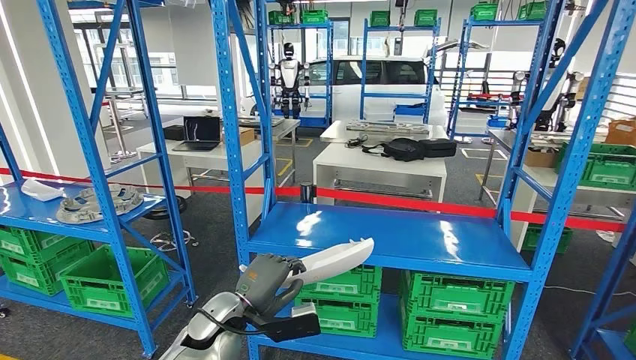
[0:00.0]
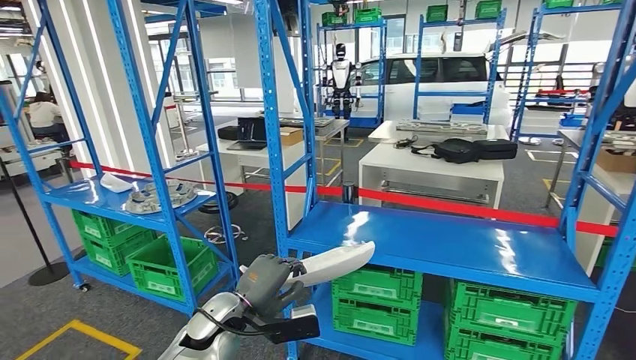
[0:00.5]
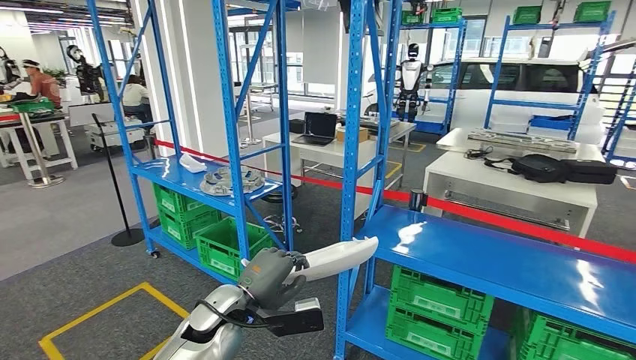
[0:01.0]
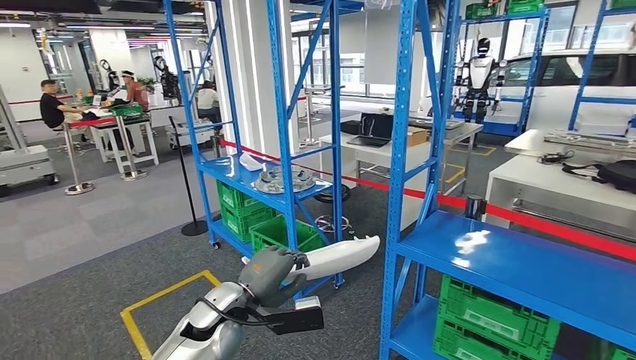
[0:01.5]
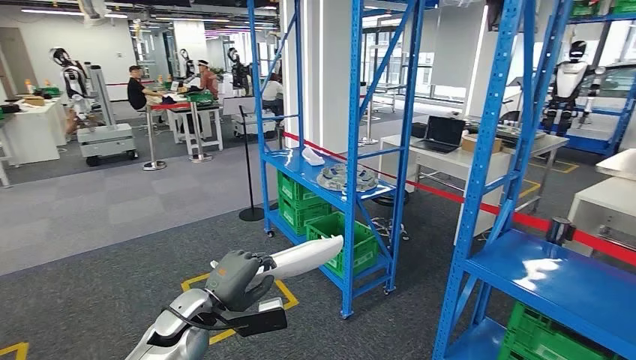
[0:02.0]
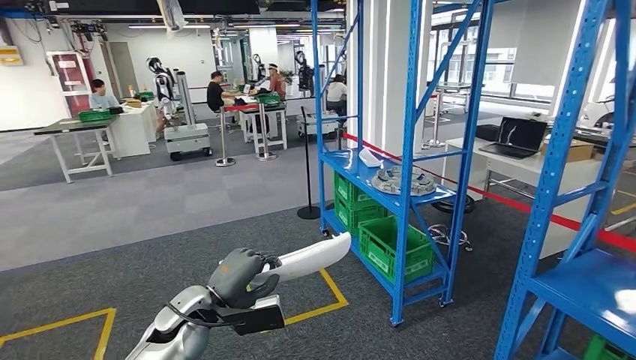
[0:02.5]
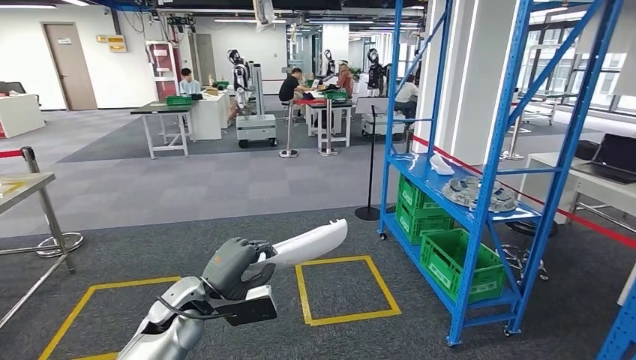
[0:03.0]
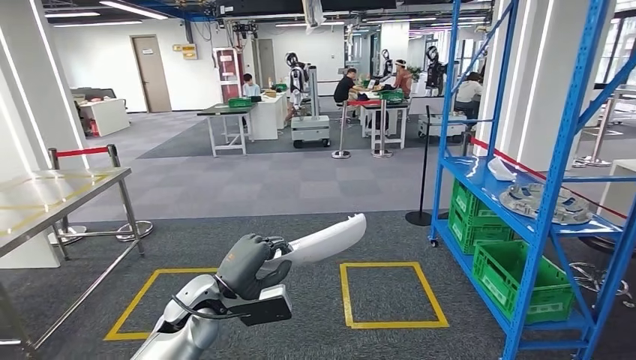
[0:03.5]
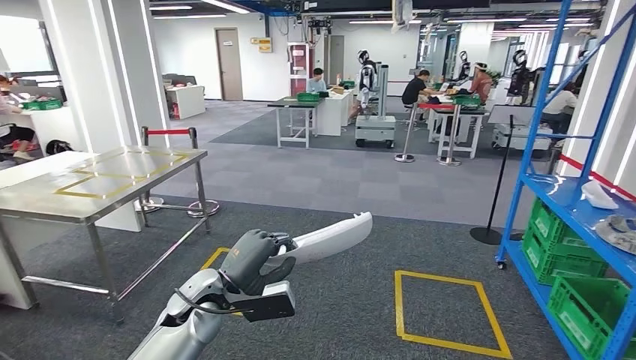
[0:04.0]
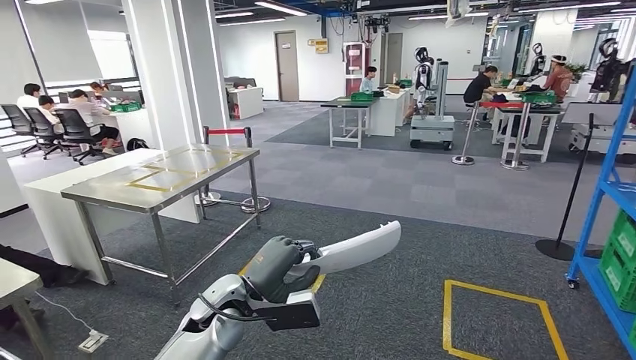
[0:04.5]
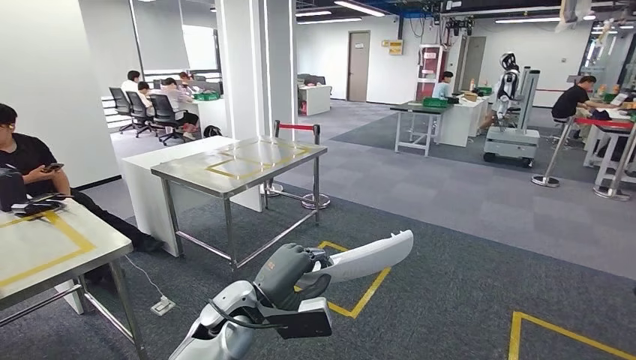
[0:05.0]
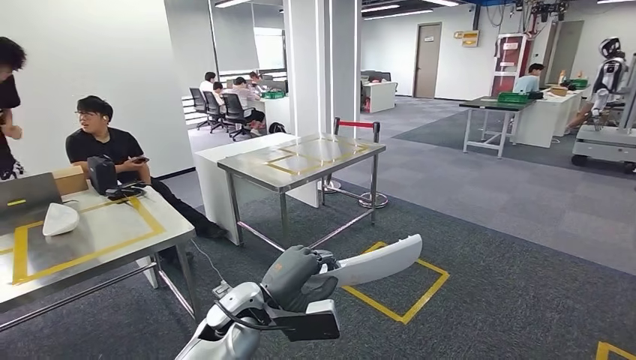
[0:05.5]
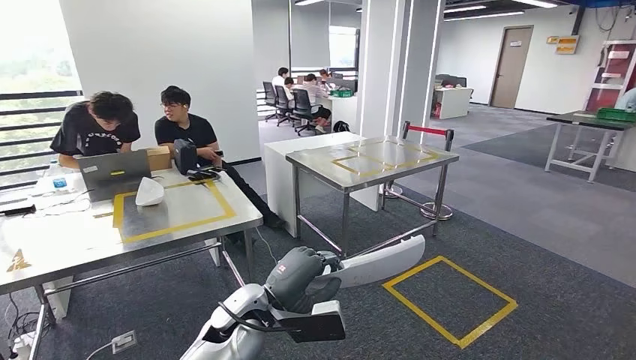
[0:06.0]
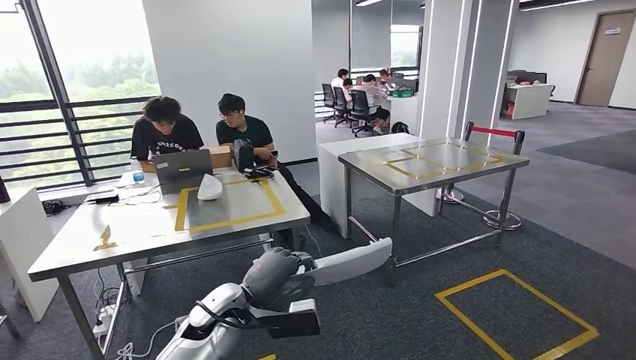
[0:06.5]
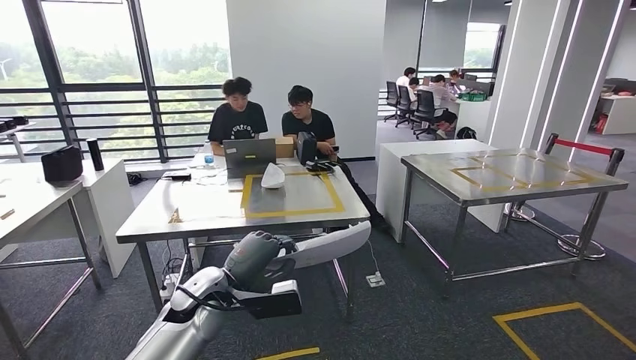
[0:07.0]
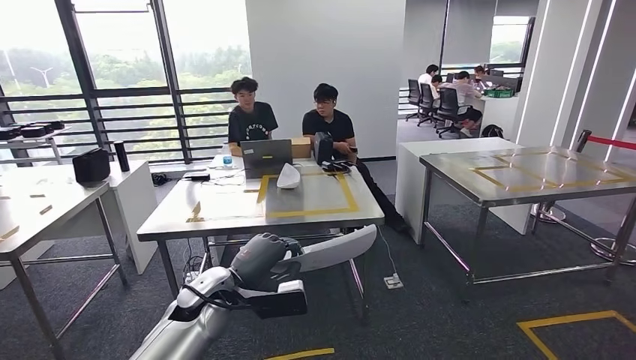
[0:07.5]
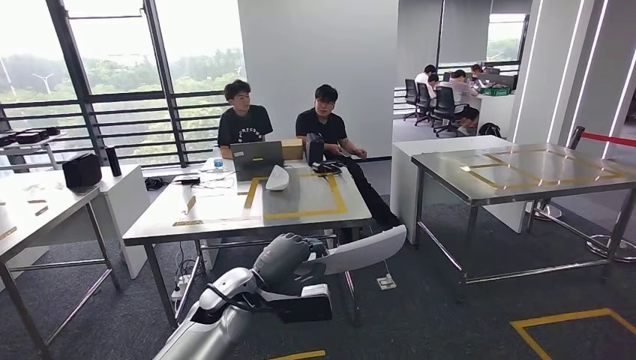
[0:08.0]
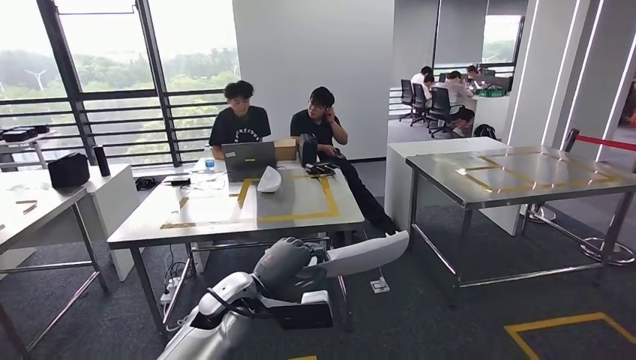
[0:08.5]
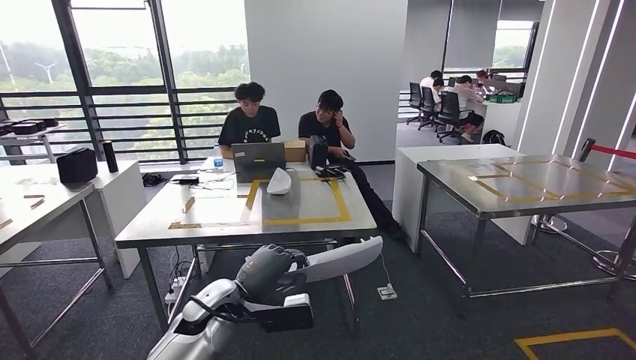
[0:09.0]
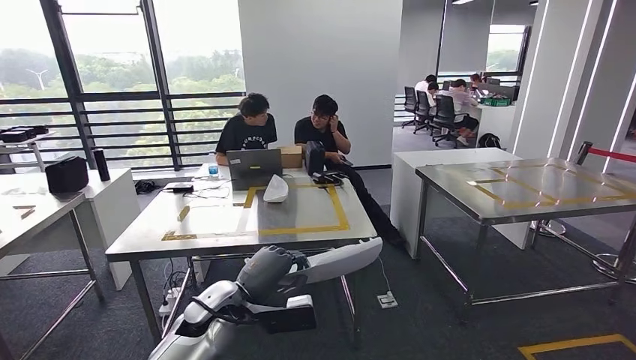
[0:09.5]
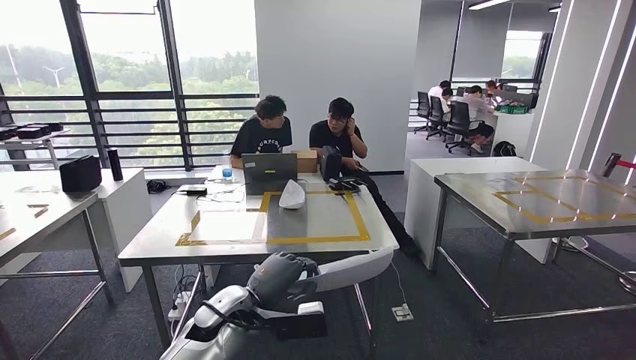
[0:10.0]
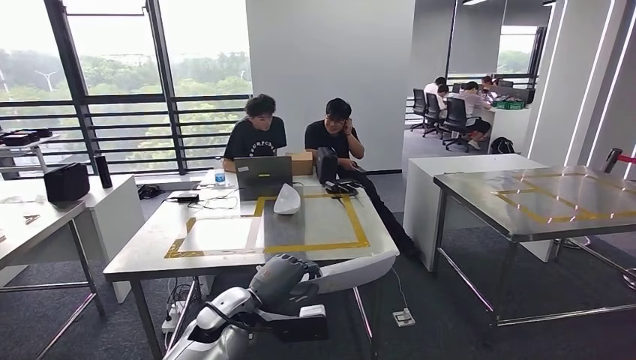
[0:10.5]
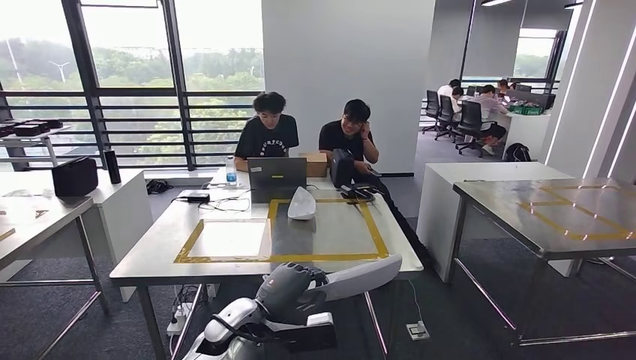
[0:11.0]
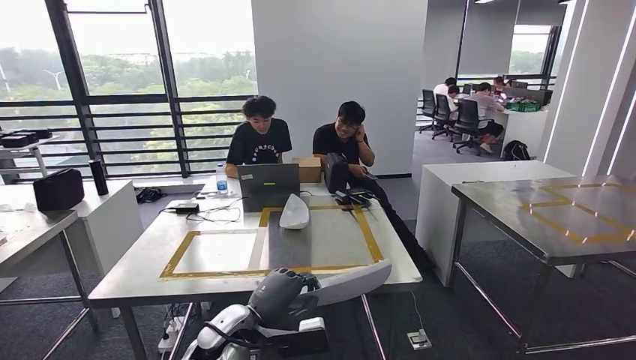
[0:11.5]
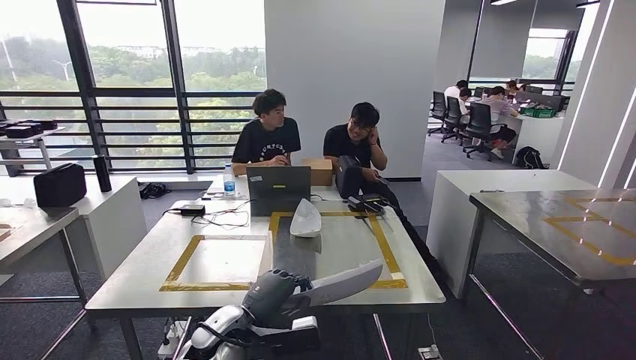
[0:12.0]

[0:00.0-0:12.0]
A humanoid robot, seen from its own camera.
Step, 0:00.0 to 0:09.0: Move the small parts to the workbench.

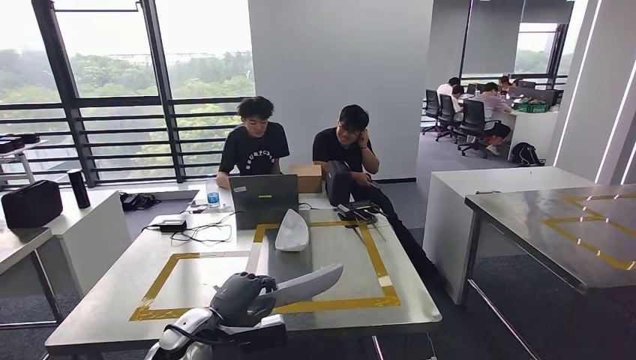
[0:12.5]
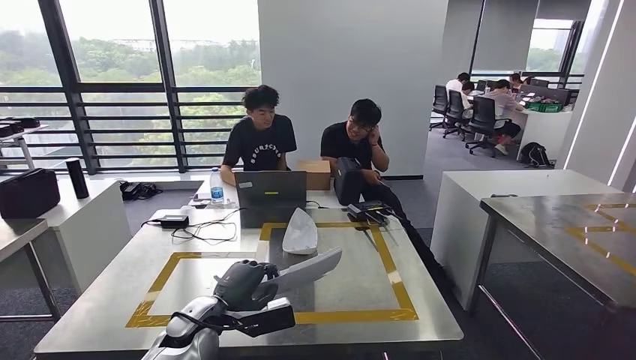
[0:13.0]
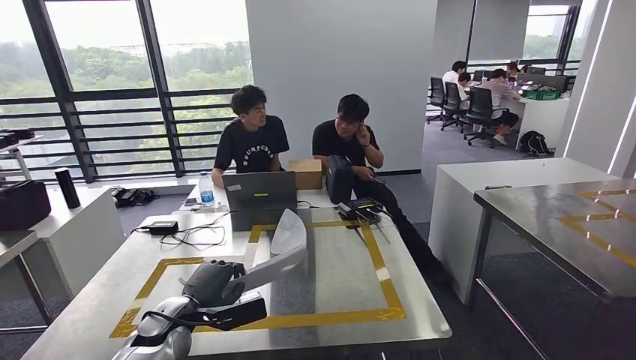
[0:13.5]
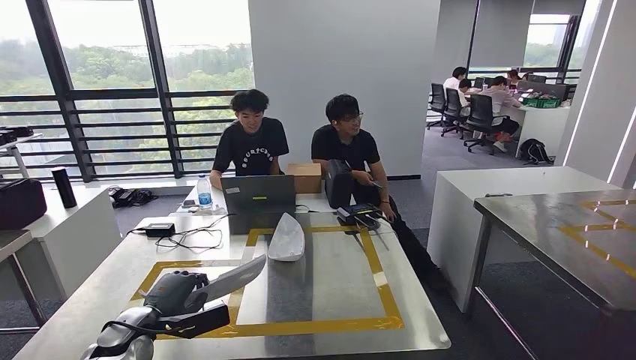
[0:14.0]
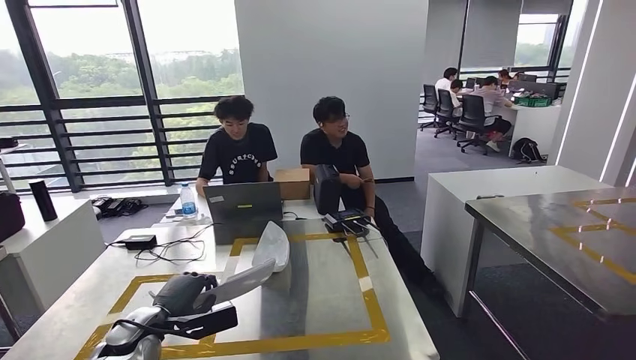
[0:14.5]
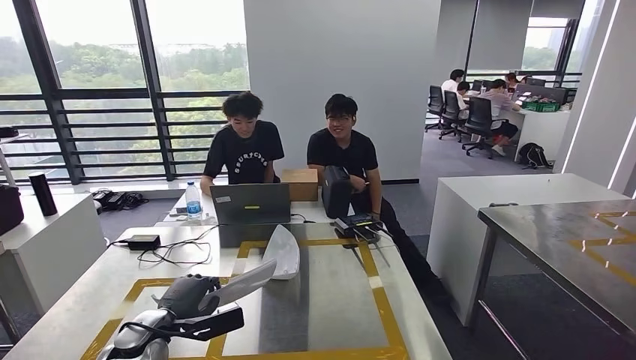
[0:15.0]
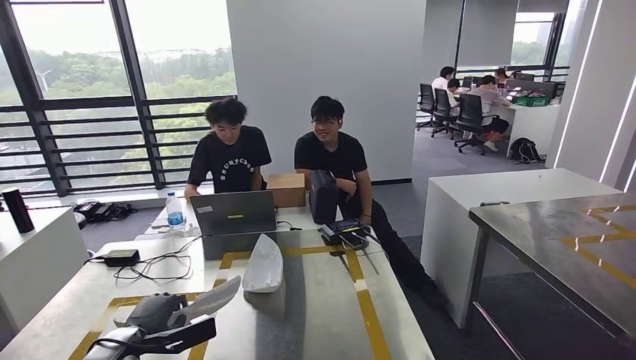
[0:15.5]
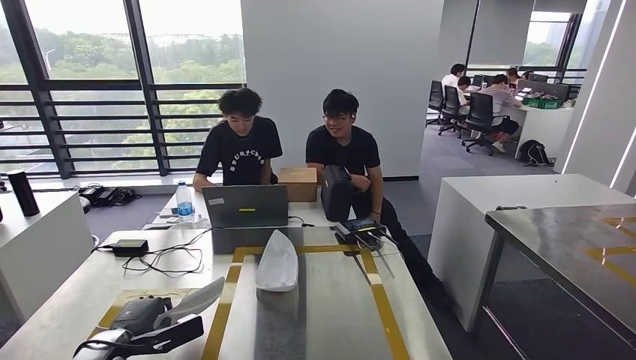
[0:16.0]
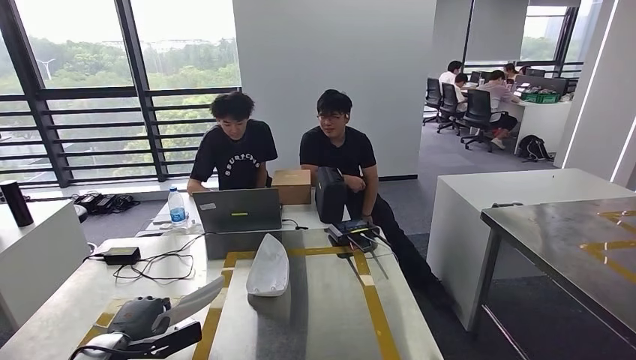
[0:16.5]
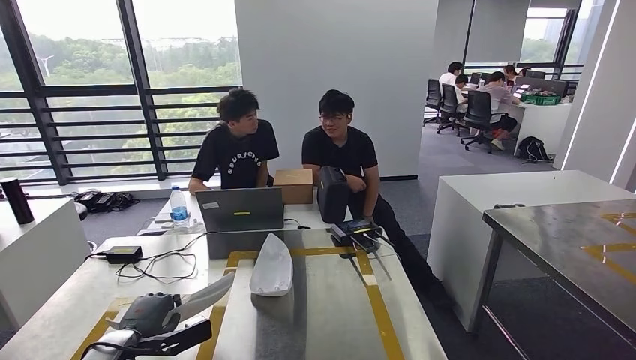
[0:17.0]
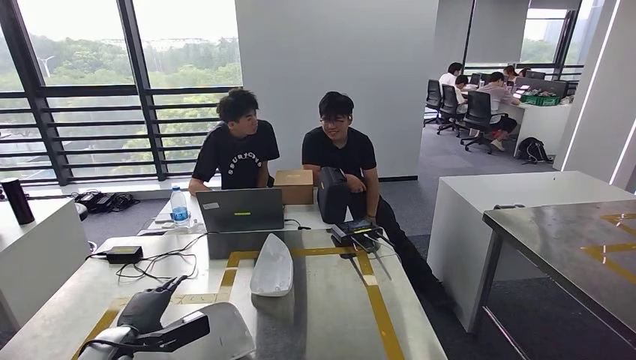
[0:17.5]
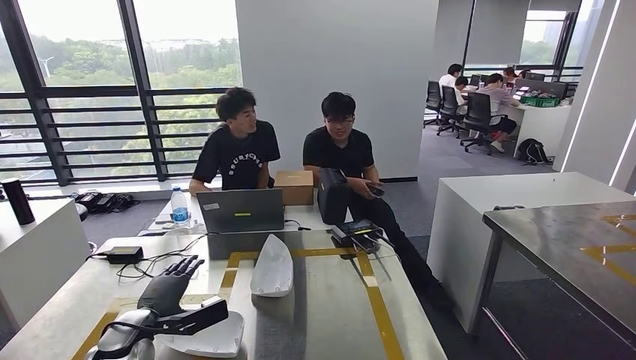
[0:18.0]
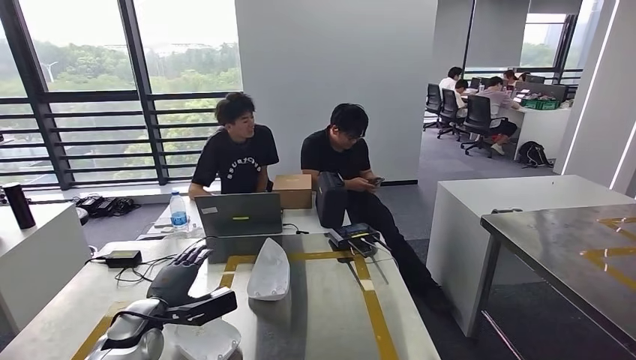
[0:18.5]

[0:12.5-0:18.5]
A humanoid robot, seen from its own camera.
Step, 0:12.5 to 0:18.0: Insert the small parts into the corresponding holes on the workbench.

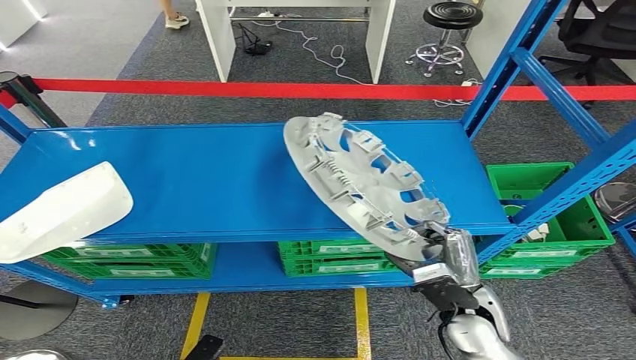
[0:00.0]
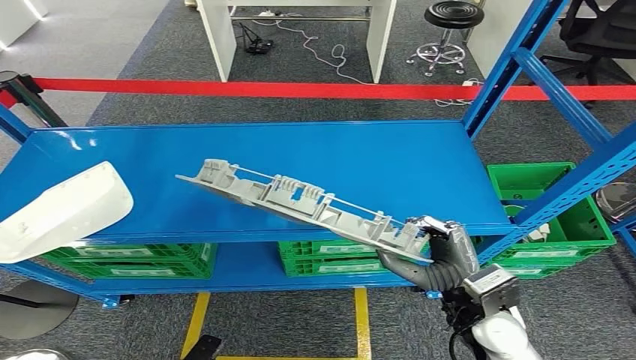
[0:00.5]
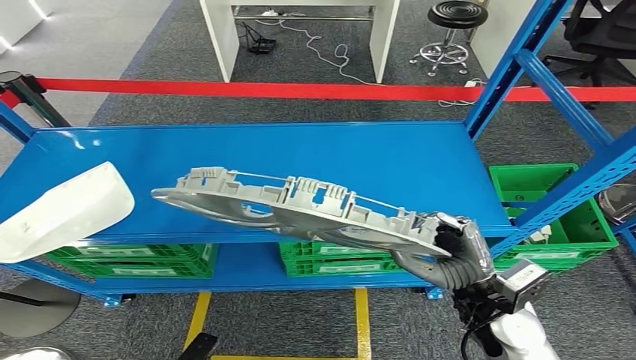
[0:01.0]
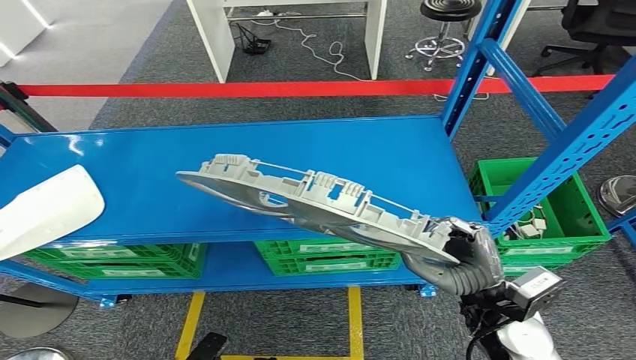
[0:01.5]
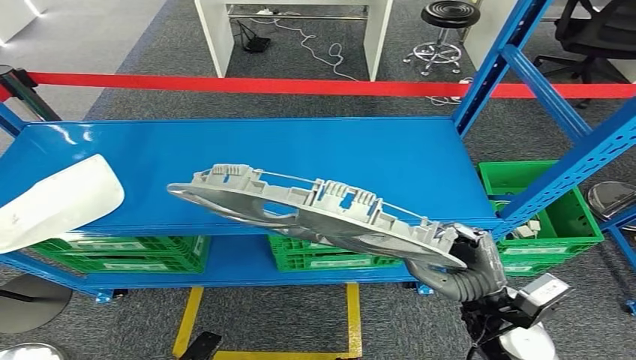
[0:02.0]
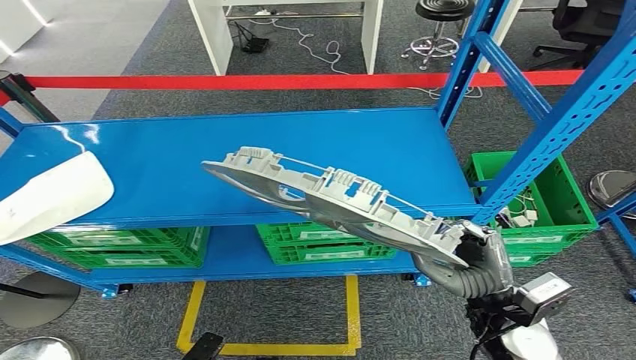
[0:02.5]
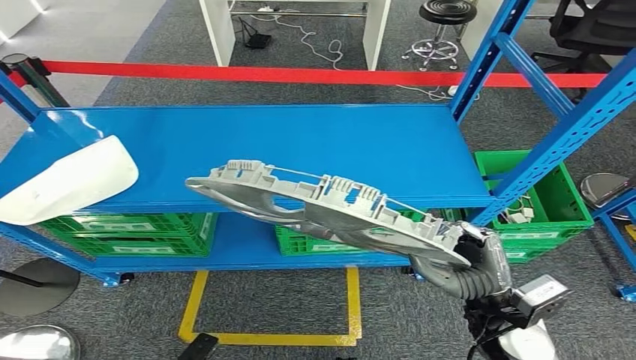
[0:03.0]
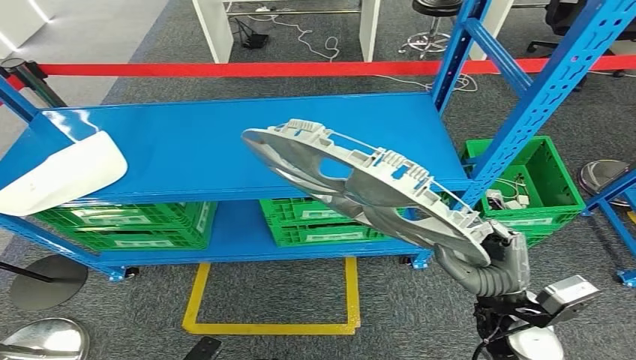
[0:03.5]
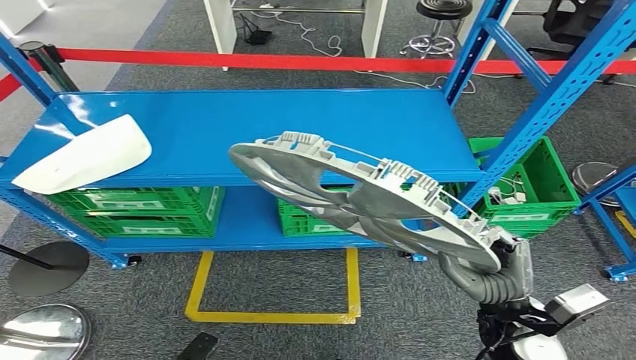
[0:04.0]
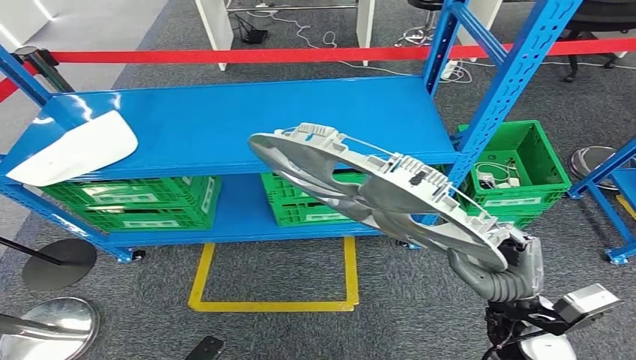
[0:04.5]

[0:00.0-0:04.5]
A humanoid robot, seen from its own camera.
Step, 0:00.0 to 0:02.0: Pick up the small parts from the shelf.
